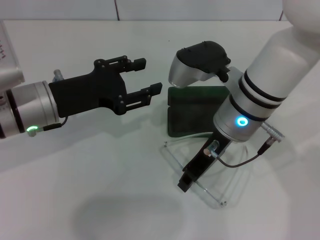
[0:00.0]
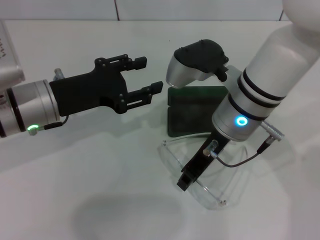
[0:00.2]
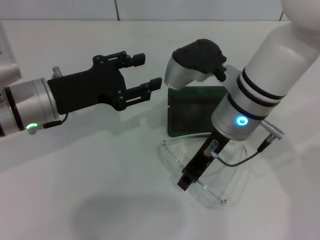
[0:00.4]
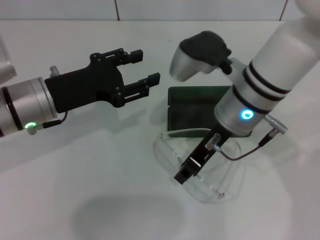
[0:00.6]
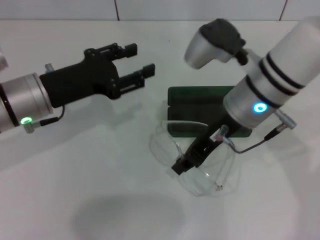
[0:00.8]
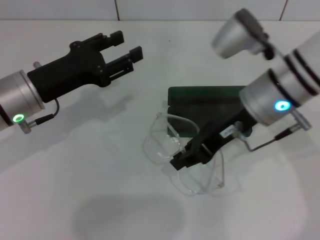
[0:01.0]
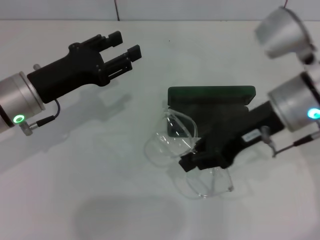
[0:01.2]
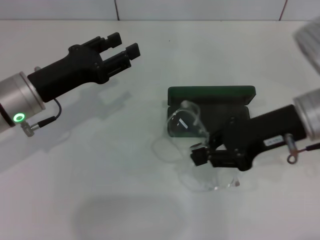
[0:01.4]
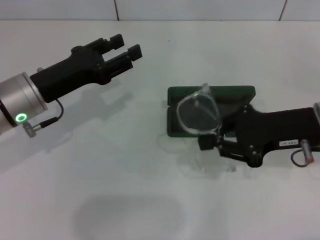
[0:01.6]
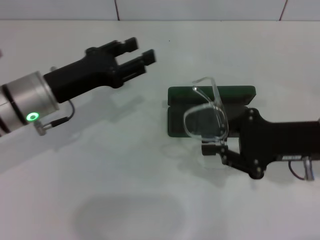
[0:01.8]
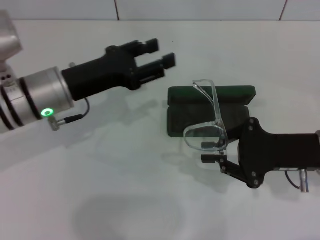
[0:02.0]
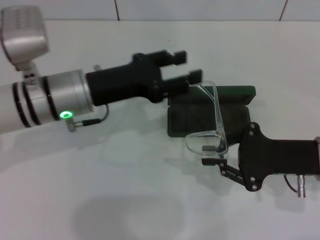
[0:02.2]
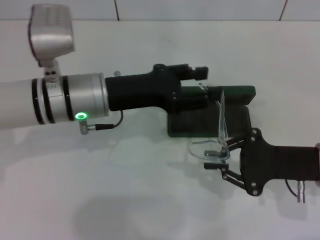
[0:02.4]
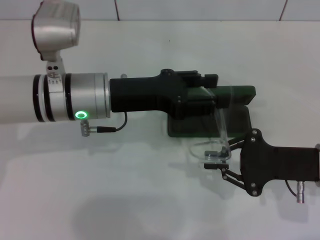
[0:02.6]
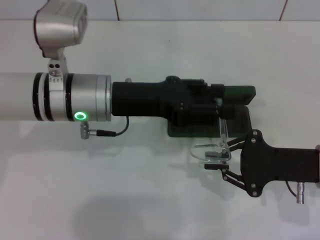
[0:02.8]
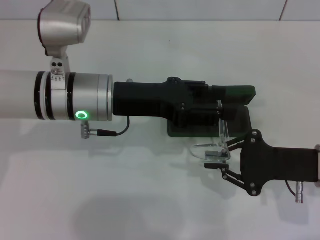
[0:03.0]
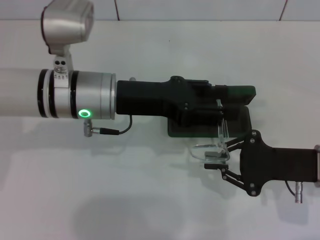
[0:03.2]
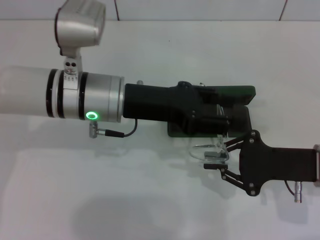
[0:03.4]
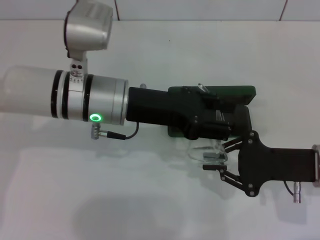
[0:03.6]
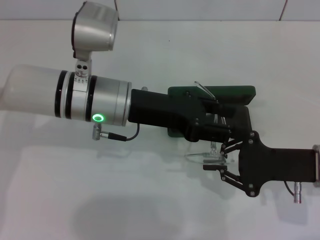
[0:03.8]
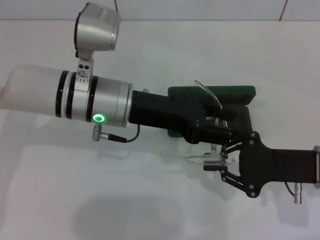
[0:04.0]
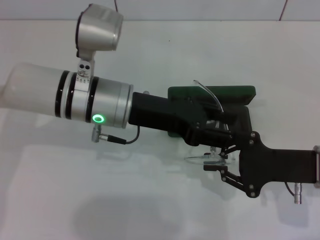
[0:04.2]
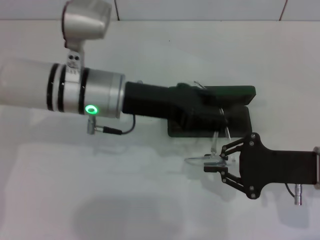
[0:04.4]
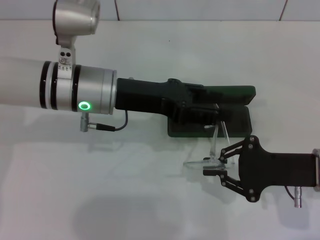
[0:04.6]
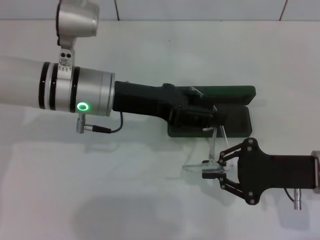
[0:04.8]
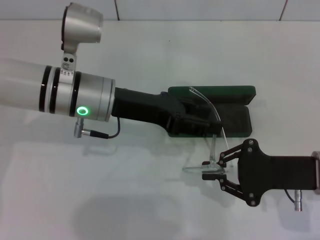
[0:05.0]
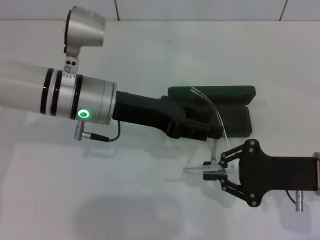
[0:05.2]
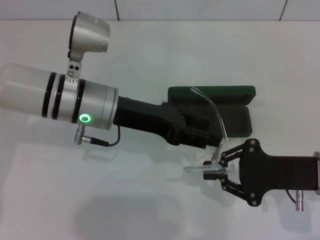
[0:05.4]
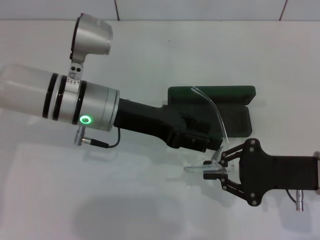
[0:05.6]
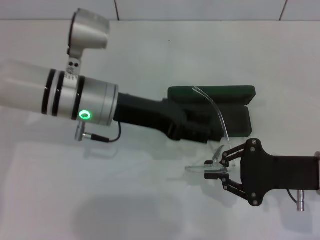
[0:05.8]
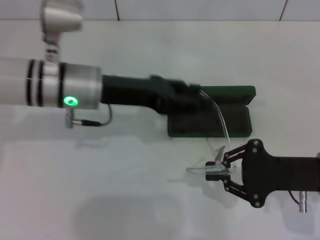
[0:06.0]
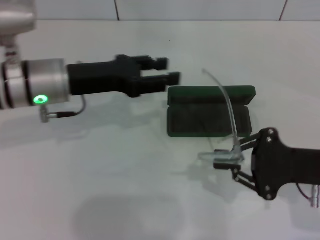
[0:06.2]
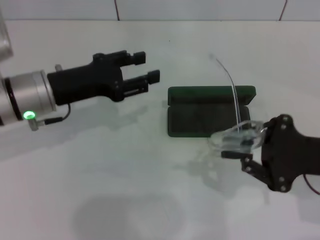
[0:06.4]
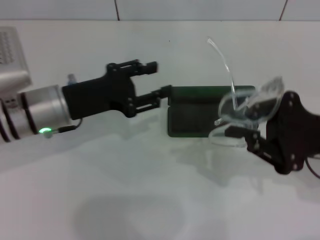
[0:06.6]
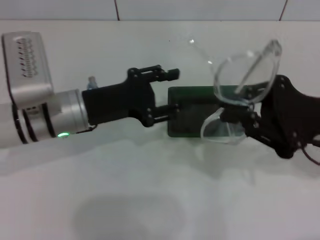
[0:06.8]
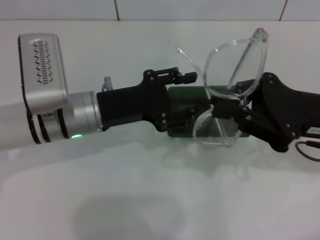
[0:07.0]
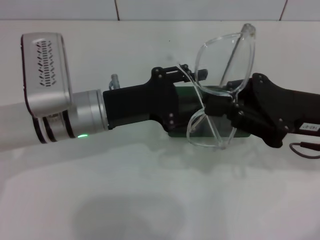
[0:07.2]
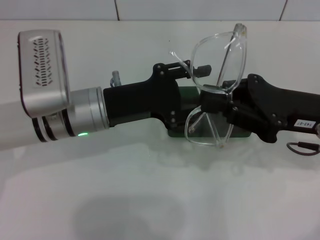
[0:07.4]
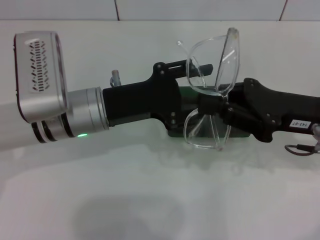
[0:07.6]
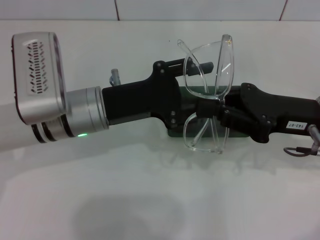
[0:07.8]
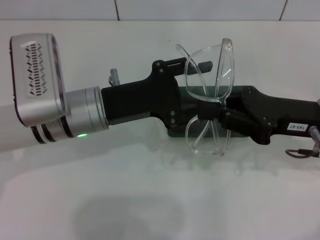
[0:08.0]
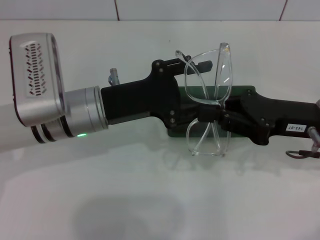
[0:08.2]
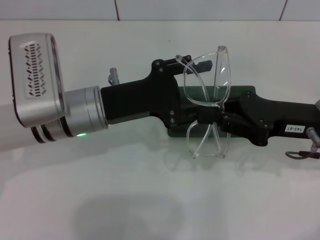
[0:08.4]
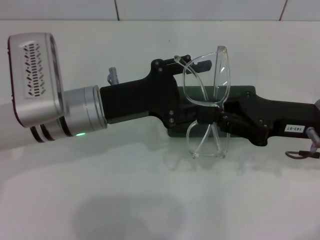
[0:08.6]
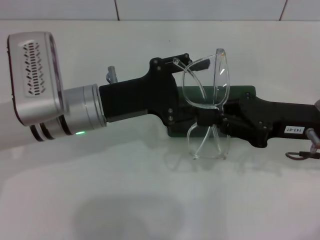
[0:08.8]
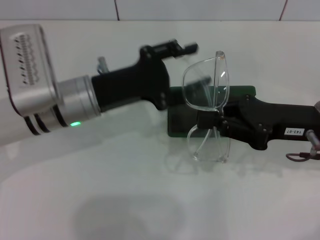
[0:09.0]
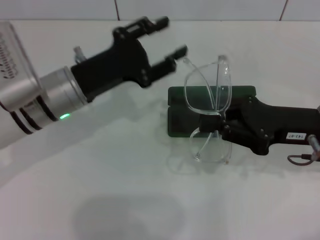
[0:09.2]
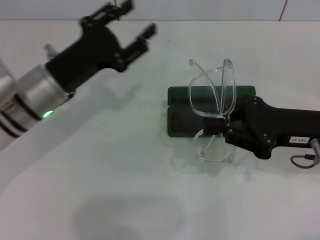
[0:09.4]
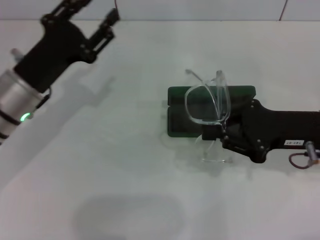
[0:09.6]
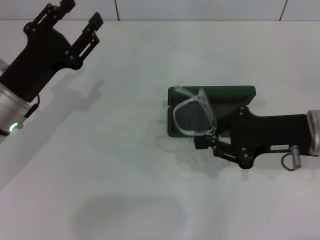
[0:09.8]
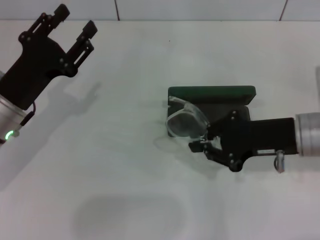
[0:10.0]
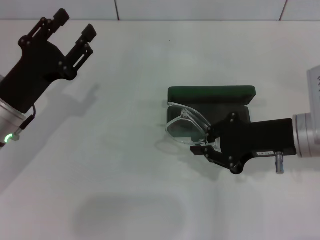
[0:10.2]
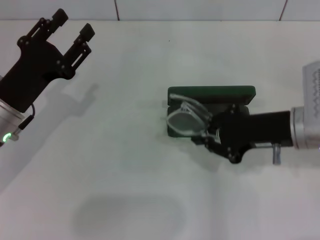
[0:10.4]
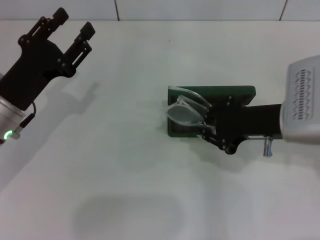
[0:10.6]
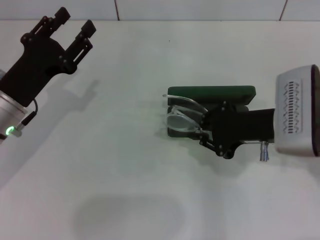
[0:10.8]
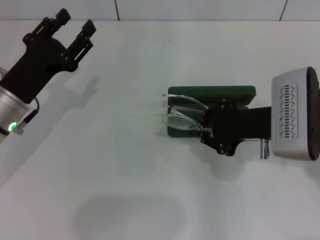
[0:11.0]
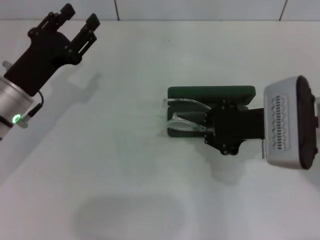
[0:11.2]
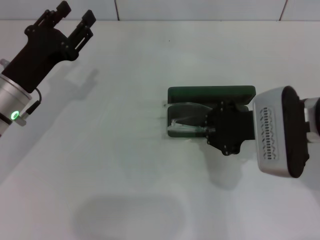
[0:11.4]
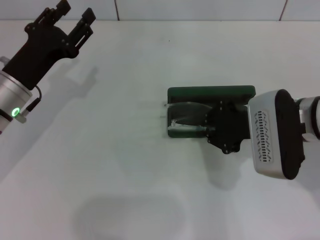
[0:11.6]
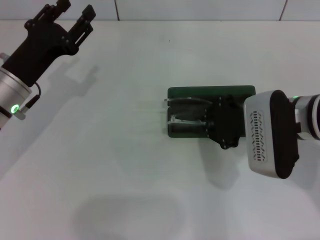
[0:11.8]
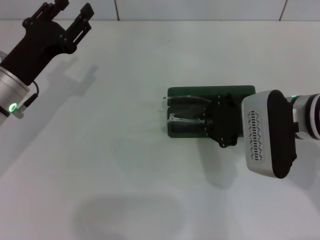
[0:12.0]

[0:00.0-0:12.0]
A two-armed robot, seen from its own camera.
Step, 0:00.0 to 0:08.8: Fold the frame with your left hand.
0:00.0 to 0:01.6: The right gripper heads to the right, covering approximately 15 cm.
0:01.6 to 0:03.0: The left gripper moves to the right, roughly 10 cm. Meanwhile the right gripper moves downward, some 5 cm.
0:03.0 to 0:06.0: The grippers stay close to where they were, moving slightly.
0:06.0 to 0:07.6: The right gripper goes approximately 5 cm upward.
0:07.6 to 0:09.0: The grippers make only small movements.
0:09.0 to 0:10.4: The left gripper goes approximately 10 cm to the left.

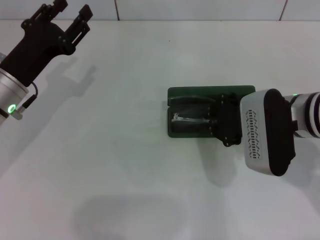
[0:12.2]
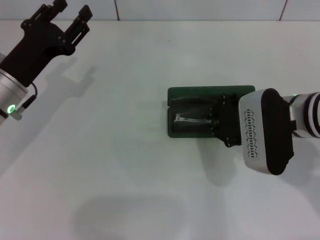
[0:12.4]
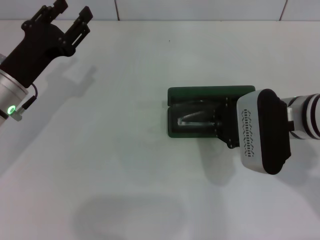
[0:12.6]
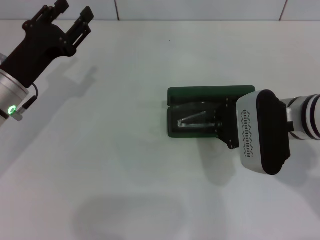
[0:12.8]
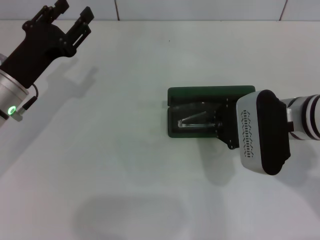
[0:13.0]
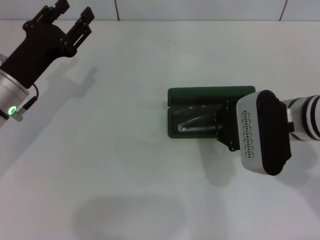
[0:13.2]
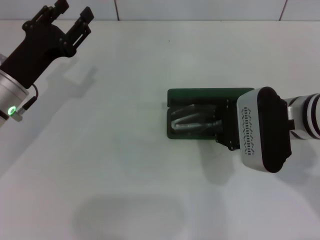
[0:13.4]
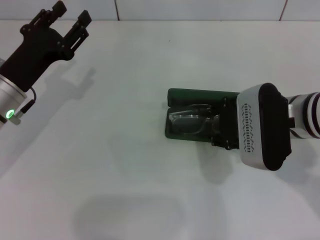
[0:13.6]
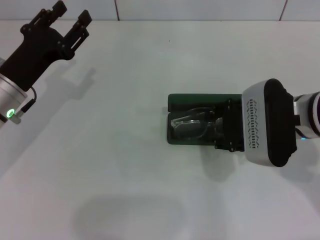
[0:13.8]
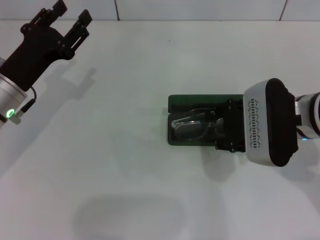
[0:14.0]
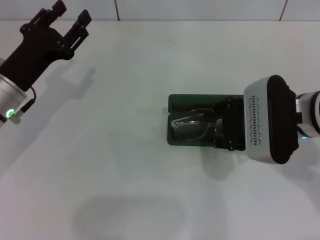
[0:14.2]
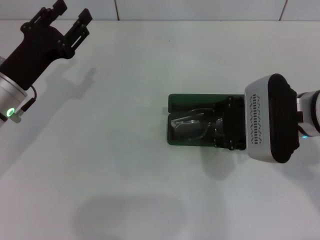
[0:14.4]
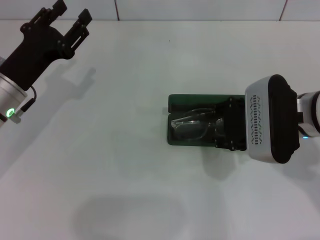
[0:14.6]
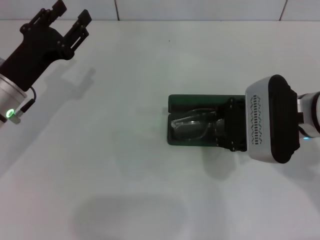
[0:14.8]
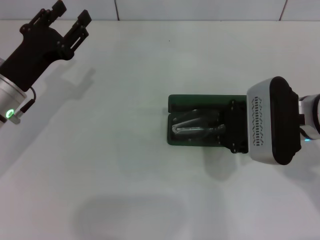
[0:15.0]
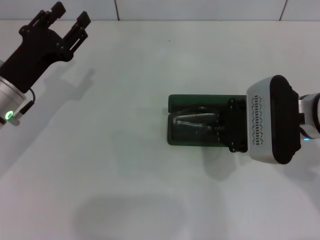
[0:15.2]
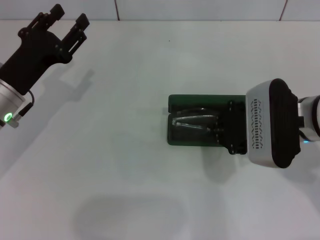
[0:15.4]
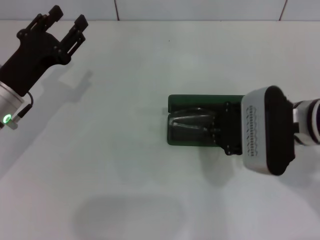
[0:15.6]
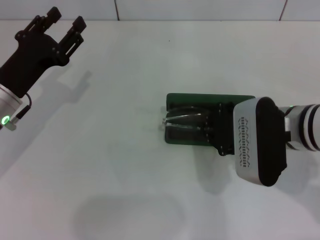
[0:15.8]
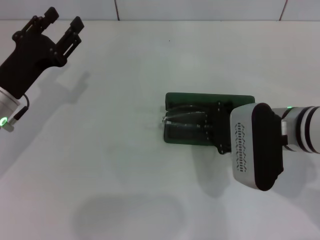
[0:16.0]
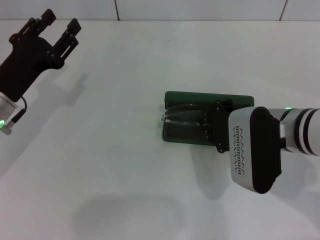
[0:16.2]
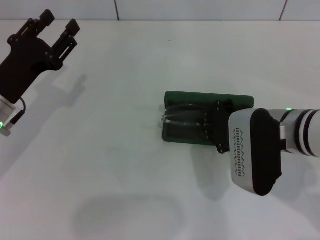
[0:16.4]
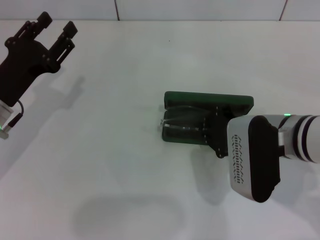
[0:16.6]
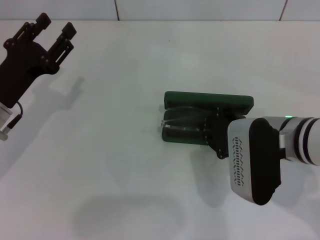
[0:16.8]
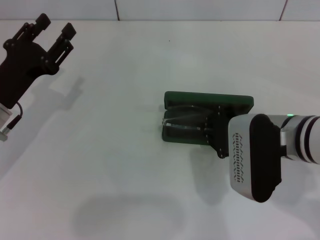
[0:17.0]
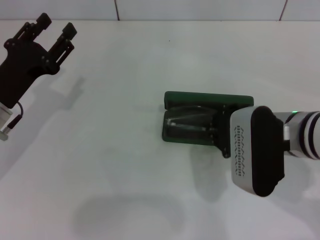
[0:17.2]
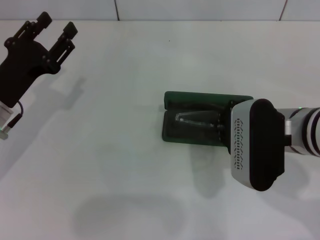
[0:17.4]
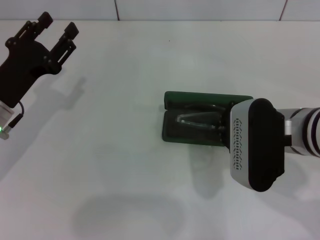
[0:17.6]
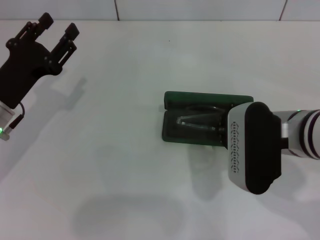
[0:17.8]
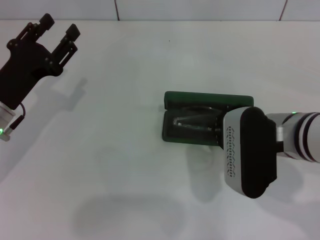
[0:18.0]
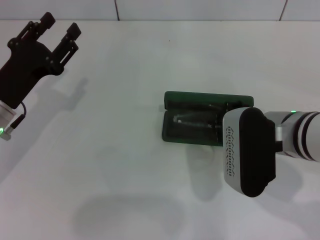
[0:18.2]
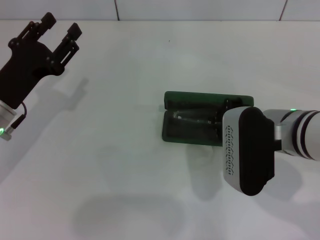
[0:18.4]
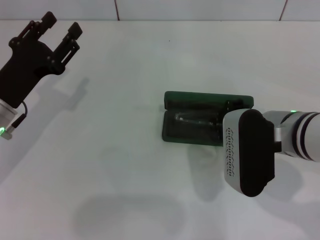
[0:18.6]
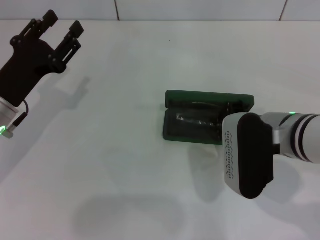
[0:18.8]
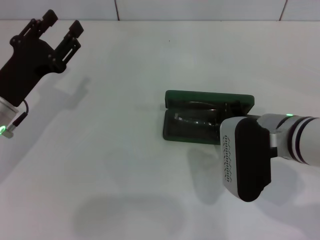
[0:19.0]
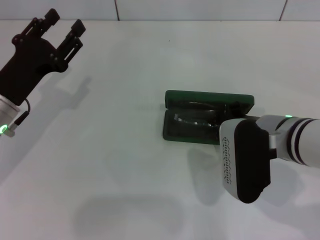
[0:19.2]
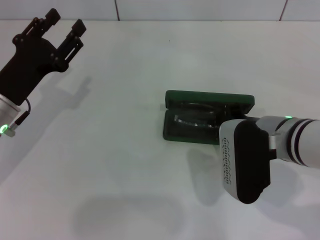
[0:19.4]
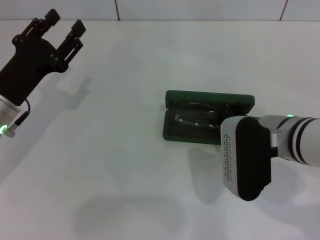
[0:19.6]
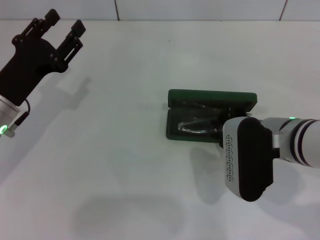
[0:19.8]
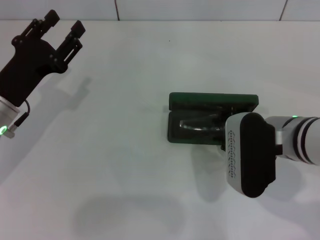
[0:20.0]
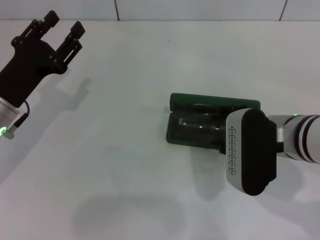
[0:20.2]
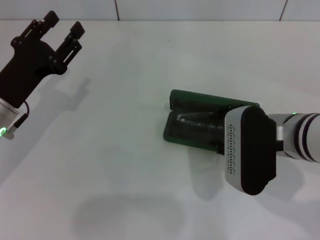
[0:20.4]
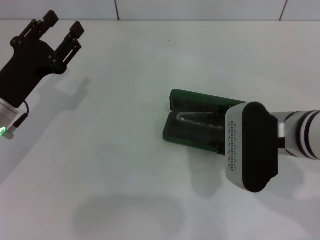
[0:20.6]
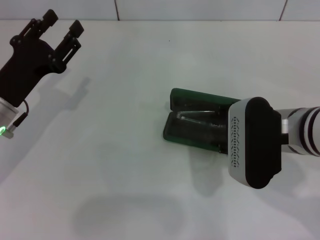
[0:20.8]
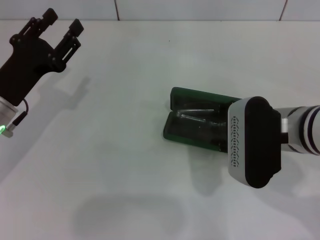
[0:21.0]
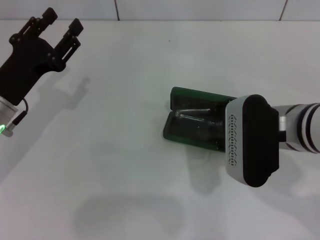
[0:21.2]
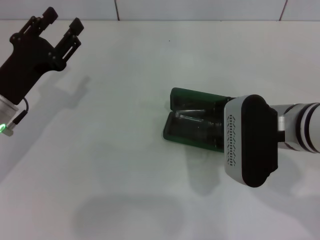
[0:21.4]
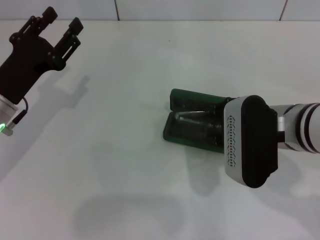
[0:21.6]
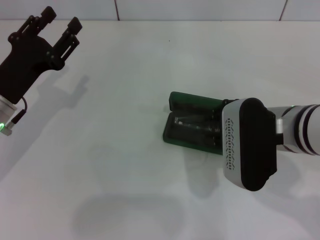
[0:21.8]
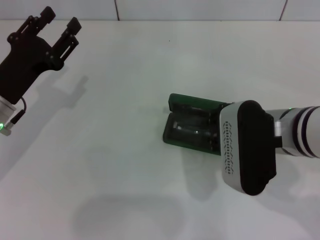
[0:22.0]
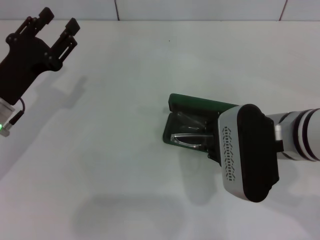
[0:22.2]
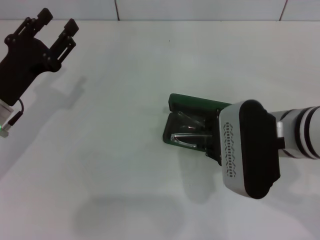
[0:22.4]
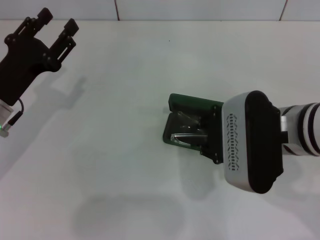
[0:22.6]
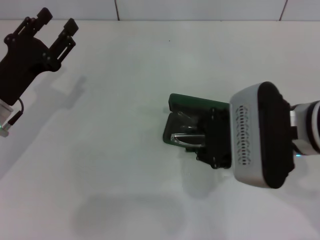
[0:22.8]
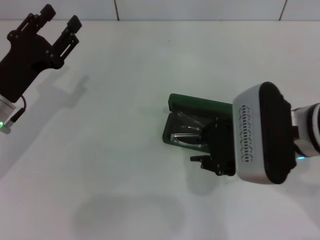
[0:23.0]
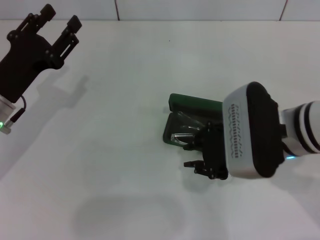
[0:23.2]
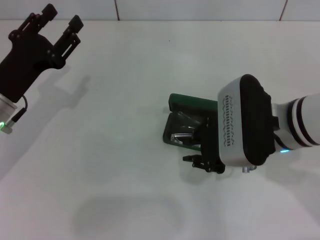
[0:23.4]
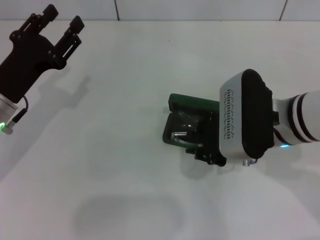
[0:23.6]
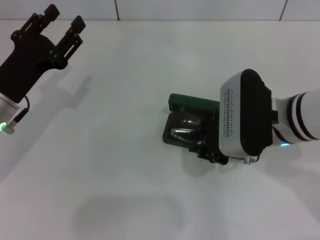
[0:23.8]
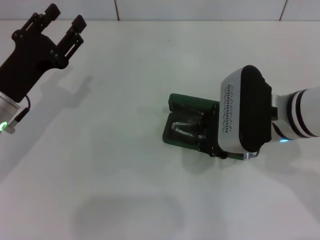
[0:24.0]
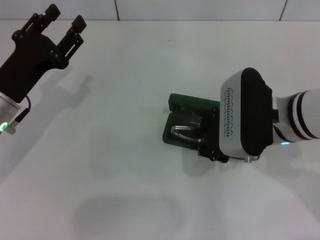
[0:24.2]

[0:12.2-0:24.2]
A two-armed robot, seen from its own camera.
Step, 0:12.2 to 0:22.6: Put the glasses into the case with your right hand.
0:12.2 to 0:13.8: The right gripper opens.
0:13.8 to 0:15.2: Both grippers stay about where they are.
0:15.2 to 0:19.8: The grippers make only small movements.
0:19.8 to 0:21.2: The right gripper opens.
0:21.2 to 0:22.6: The right gripper closes.
0:22.6 to 0:24.2: The grippers make only small movements.
